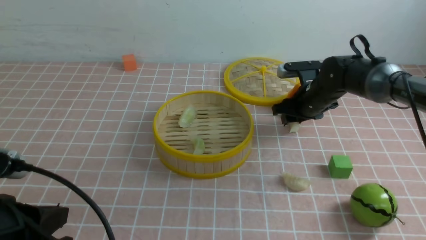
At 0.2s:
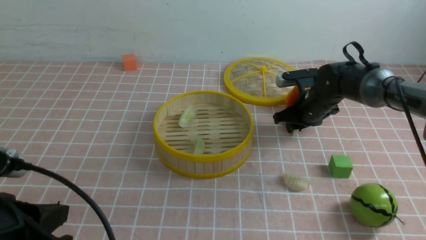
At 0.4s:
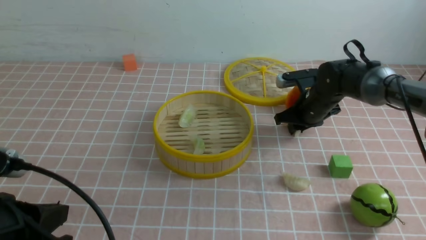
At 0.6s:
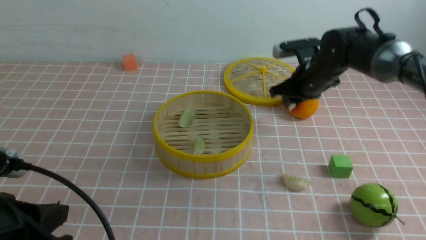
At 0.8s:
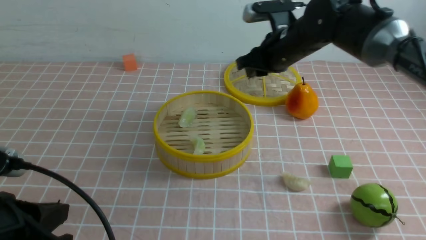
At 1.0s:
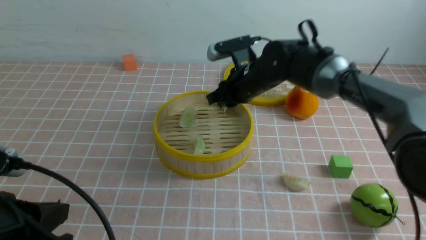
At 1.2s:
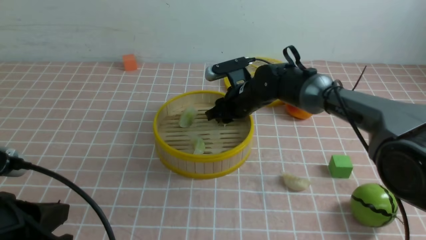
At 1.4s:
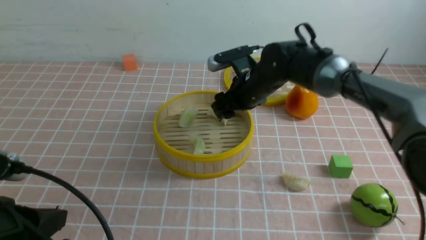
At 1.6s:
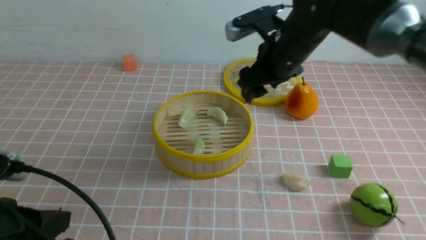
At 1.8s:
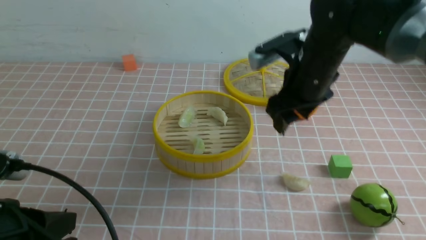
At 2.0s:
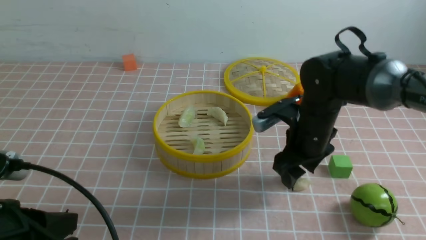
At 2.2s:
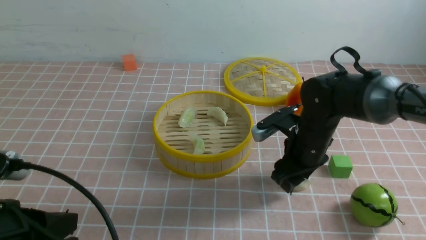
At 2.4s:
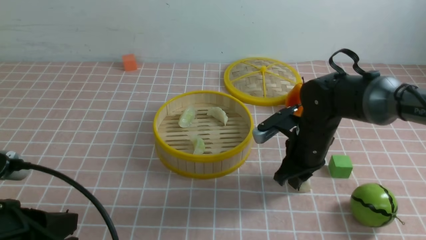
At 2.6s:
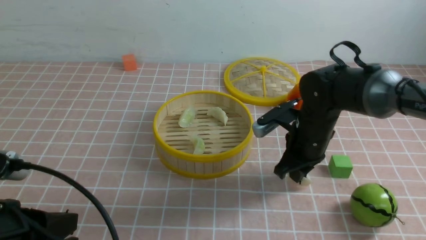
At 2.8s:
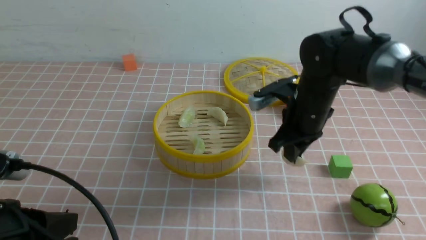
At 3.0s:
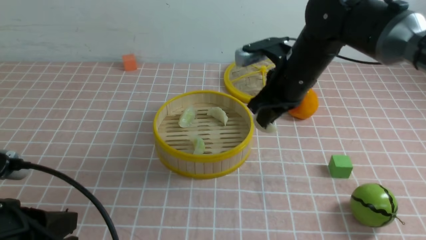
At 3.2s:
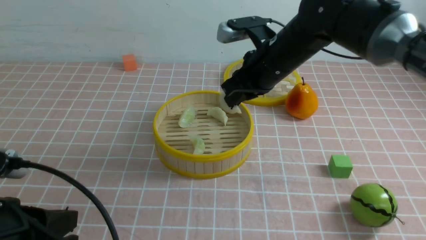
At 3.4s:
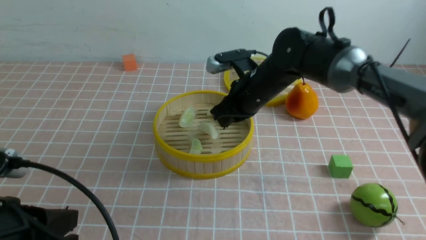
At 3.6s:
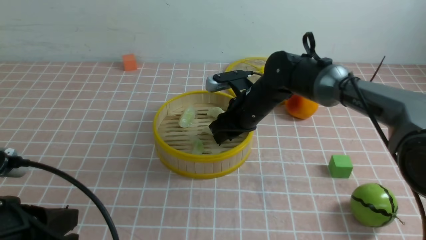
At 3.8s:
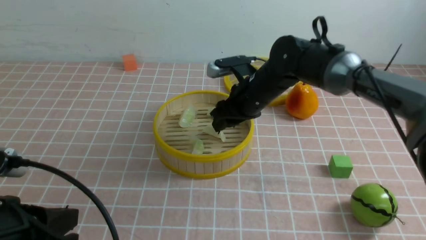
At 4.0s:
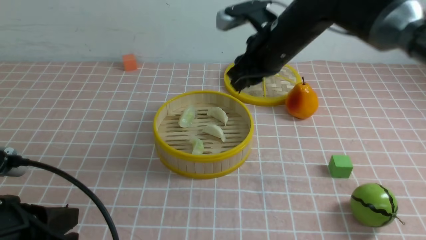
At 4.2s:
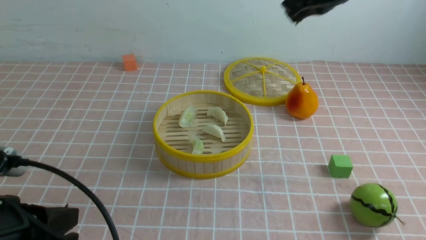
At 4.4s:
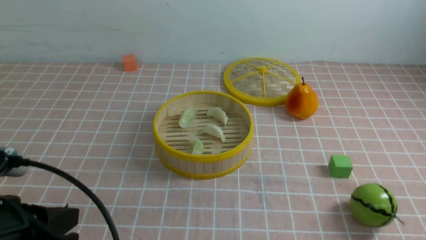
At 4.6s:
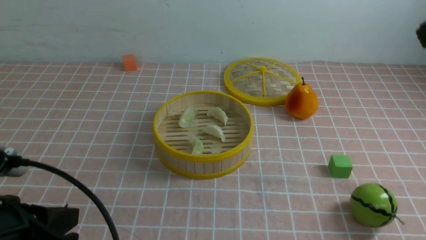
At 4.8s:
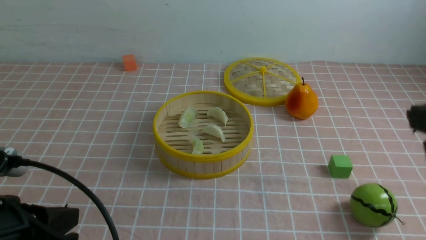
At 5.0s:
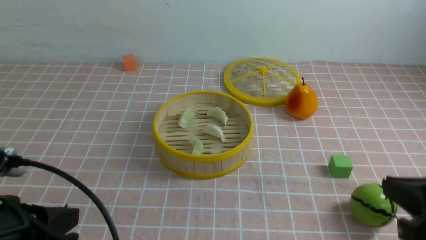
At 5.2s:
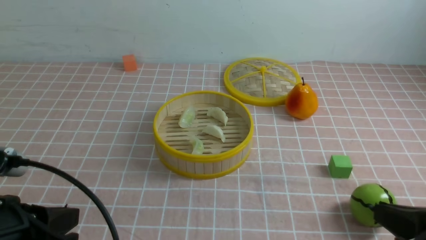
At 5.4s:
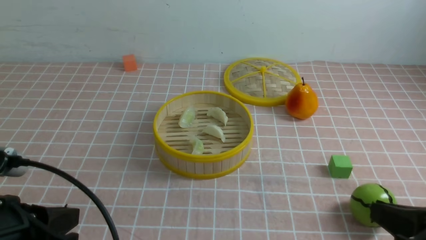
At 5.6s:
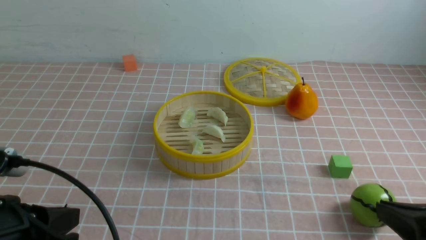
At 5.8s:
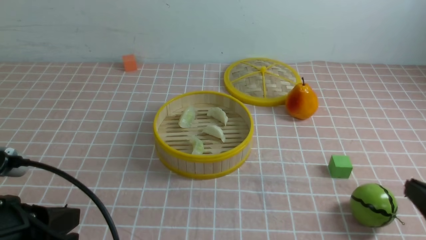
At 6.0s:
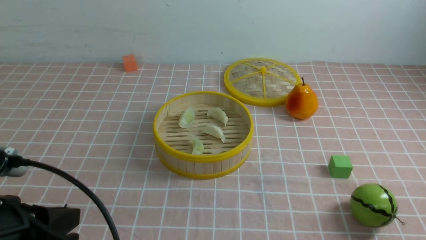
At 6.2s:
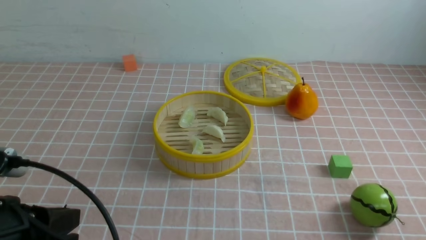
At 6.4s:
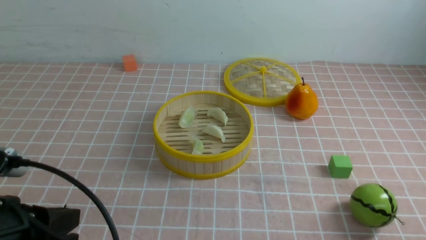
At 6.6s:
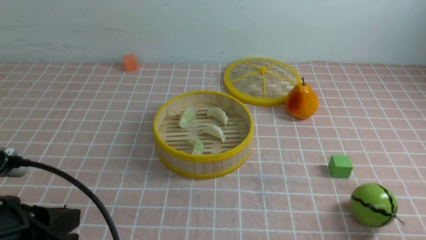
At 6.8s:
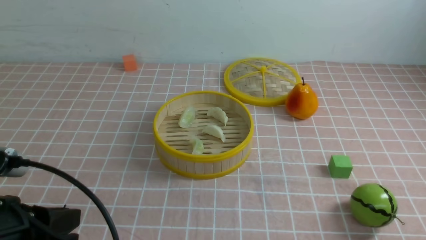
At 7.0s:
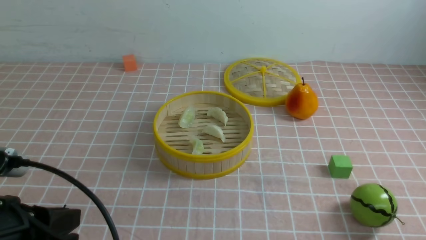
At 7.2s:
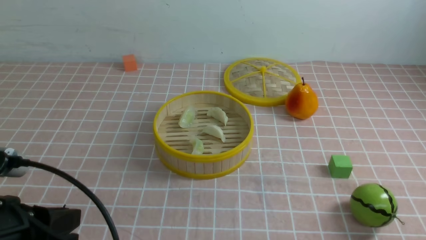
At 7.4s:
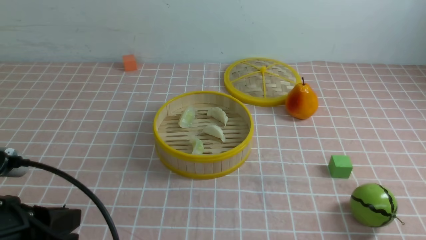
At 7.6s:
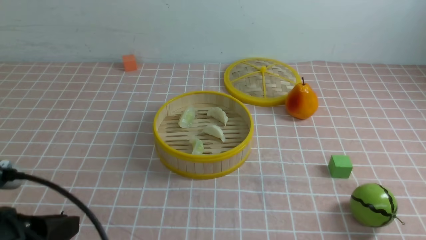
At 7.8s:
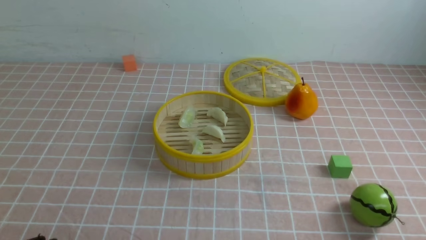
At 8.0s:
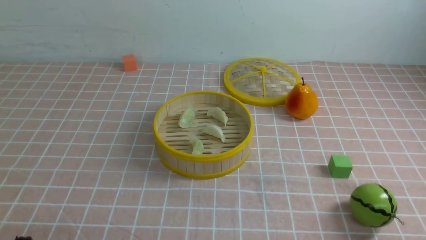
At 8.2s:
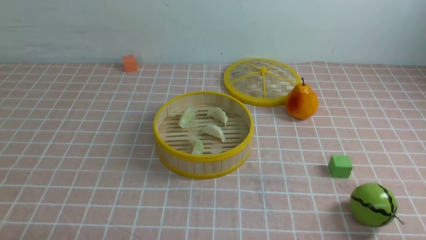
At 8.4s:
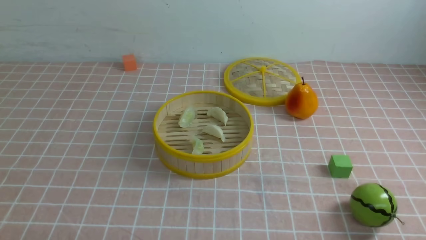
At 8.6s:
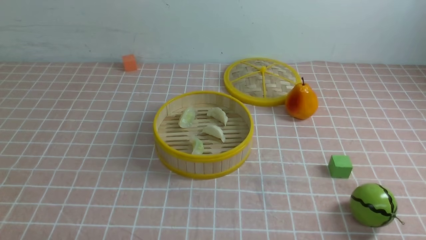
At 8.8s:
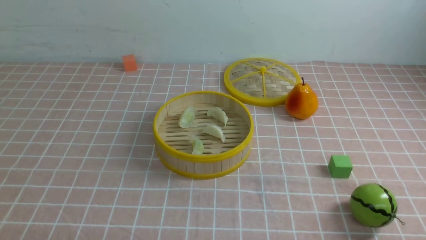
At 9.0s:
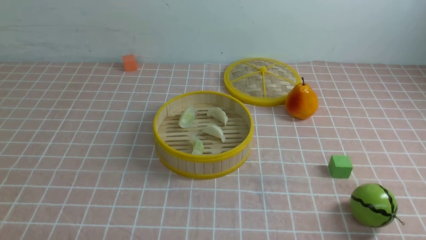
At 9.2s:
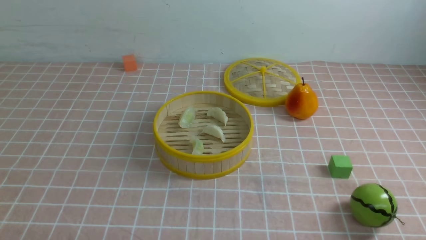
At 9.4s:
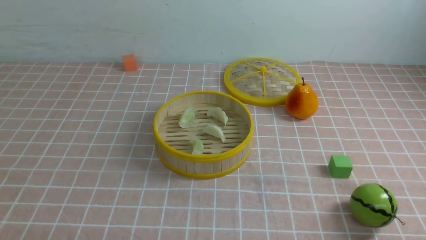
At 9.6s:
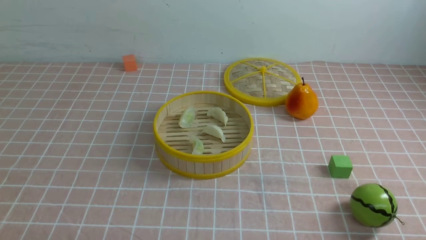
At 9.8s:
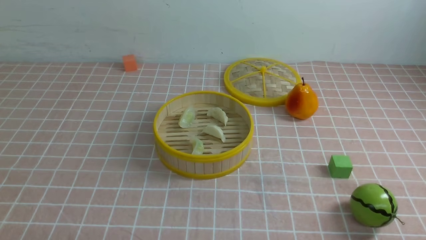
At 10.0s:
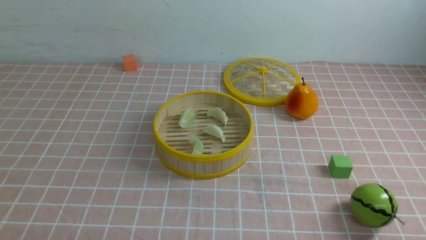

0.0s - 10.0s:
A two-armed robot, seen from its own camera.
Task of the whole recording: put the dumplings into the steamer on the table with the pink tablecloth.
Step, 0.6s - 1.2s: use the right arm to put the dumpling into the steamer.
Step, 1.4s - 2.4s: use the right arm to grab a dumpling.
Step, 2.6s - 3.8s: use the right arm to put the dumpling into the steamer.
0.0s - 1.4s: The right gripper travels to the left and upward by about 15 cm.
1.4s - 2.8s: The right gripper goes about 10 cm backward and to the right, moves approximately 5 cm downward and comes back, and closes its fingers.
2.8s - 4.2s: The right gripper travels upward by approximately 20 cm, and opens, then closes again.
4.2s - 5.8s: The right gripper moves backward, downward and to the right, about 35 cm.
5.8s - 7.2s: The right gripper travels downward by some 5 cm.
7.2s - 8.6s: The left gripper goes approximately 15 cm downward, backward and to the left.
8.6s - 10.0s: Neither gripper changes place.

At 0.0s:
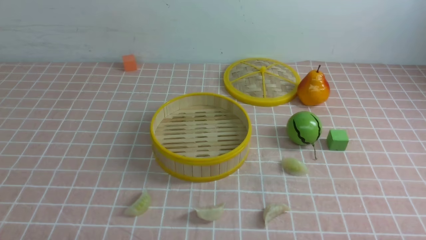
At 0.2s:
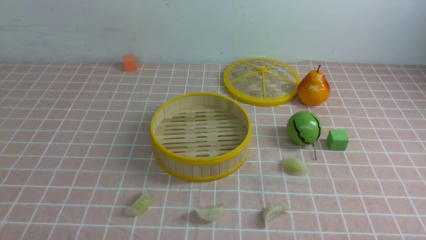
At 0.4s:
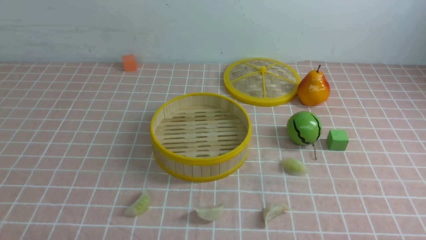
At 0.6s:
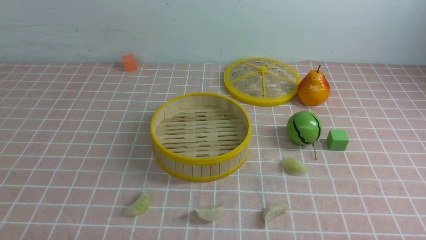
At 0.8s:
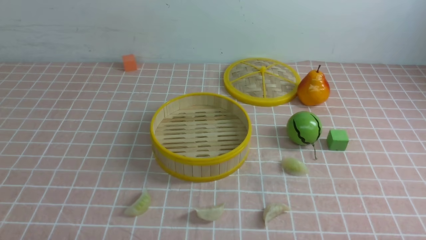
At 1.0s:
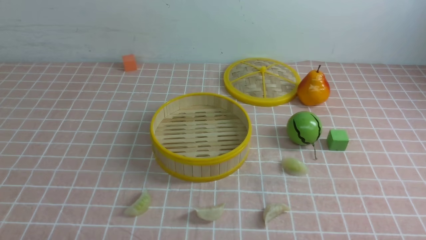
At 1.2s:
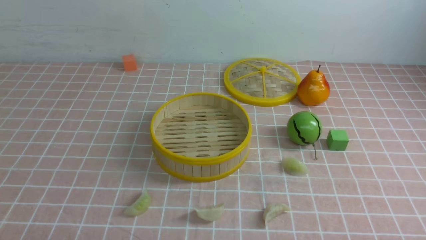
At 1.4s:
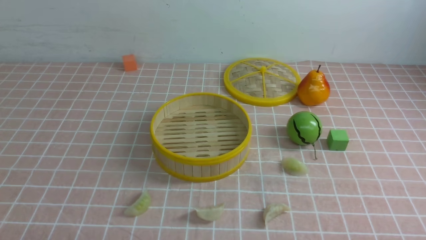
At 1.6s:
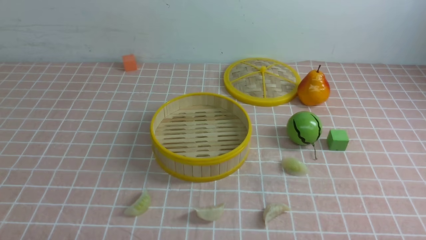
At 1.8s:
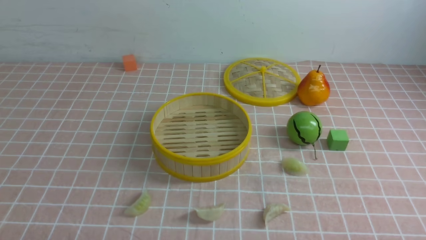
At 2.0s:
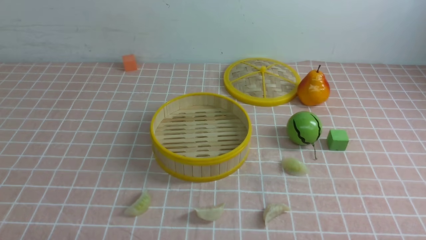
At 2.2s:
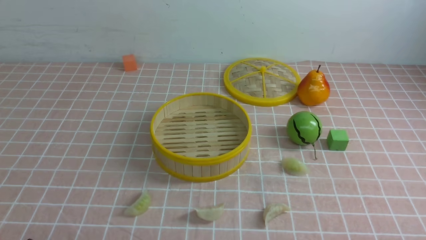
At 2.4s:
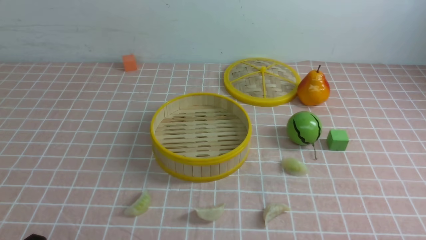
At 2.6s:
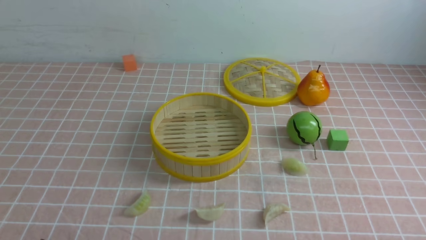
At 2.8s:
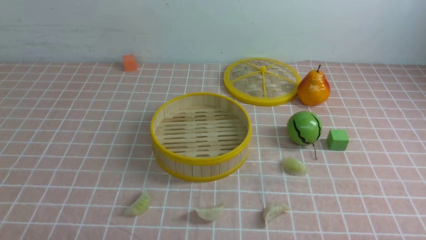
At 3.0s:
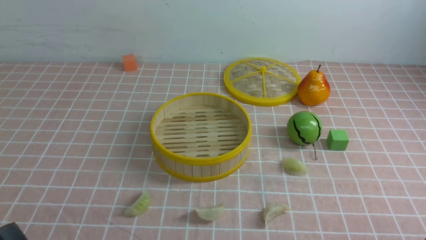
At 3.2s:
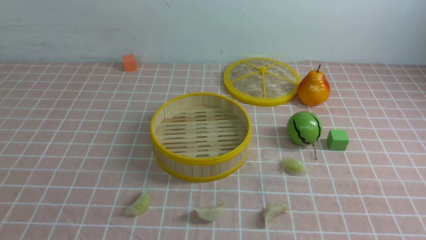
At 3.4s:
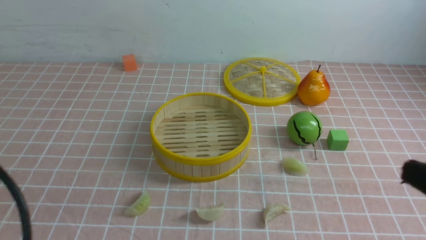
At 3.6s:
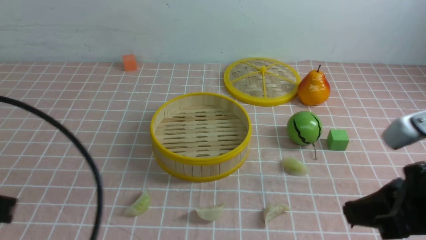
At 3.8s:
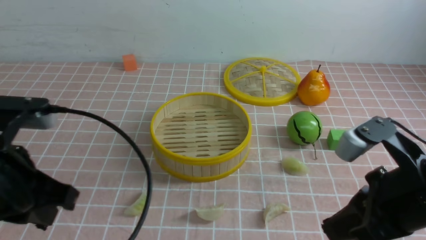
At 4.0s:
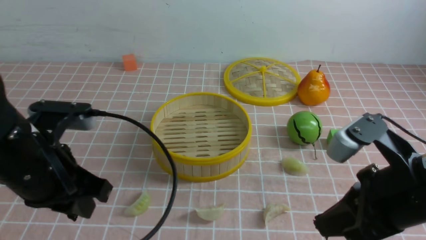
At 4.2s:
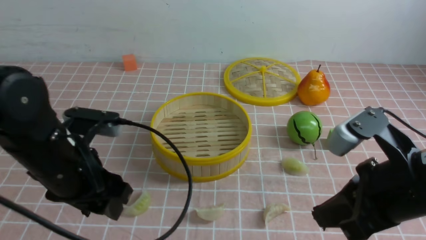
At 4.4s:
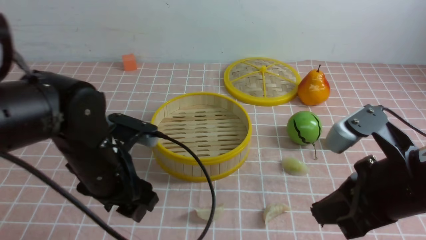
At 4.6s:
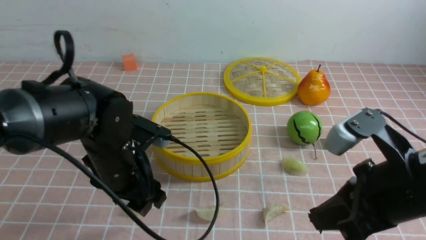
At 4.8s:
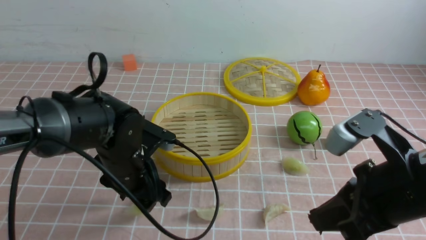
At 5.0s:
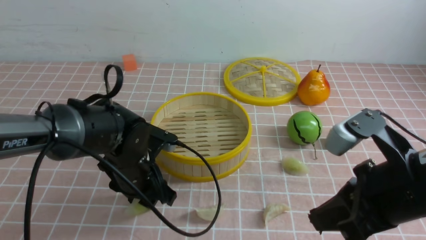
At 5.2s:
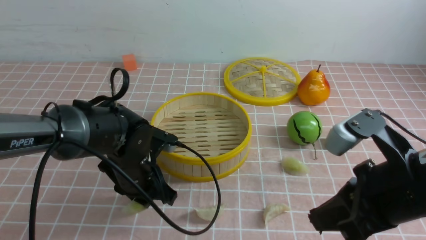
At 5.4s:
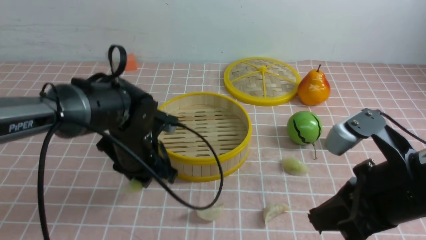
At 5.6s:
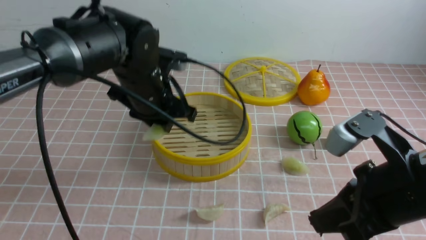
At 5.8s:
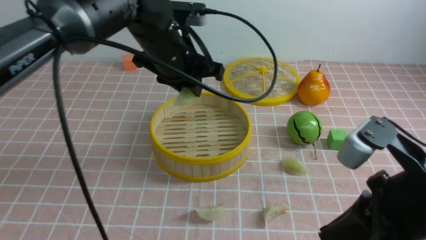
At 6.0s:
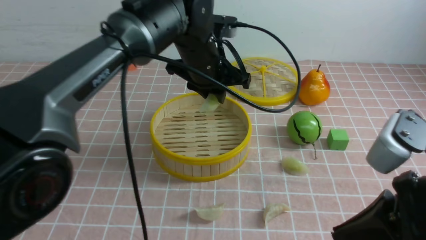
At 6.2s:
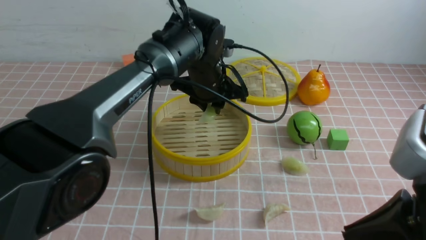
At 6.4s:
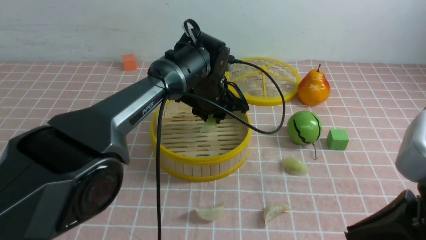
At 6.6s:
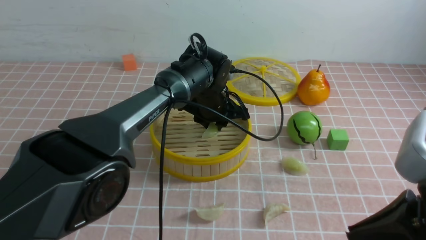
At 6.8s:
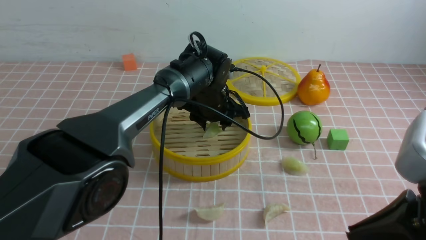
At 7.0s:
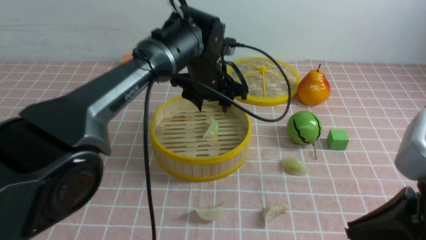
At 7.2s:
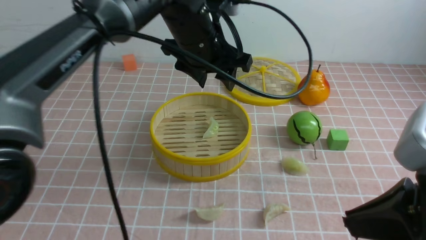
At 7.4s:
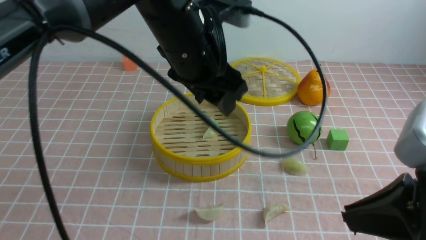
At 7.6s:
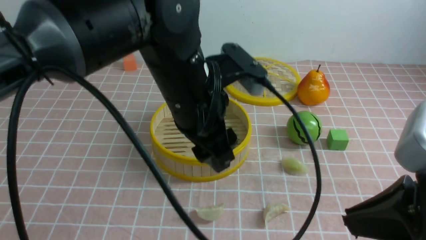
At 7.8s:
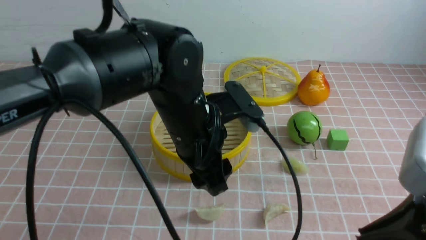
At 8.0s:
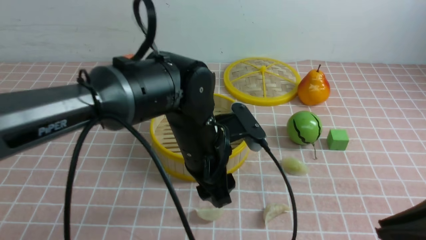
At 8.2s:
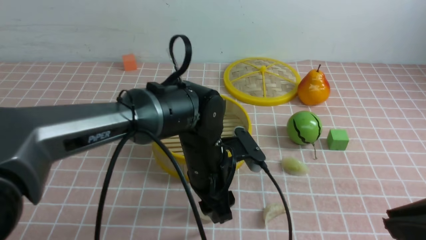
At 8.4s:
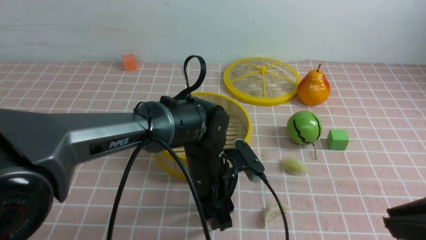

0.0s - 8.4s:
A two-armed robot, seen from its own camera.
Task of the whole recording: put the dumplings into the steamer on the table with the pink tablecloth.
Step, 0.0s - 5.2s: use the left arm to grab a dumpling.
Step, 5.4s - 7.0s: use the left arm to put the dumpling into the steamer.
2.8s - 4.2s: The right gripper shifts about 20 cm forward, upward and to the left, and closes up. Meanwhile the left gripper goes some 20 cm forward and upward, and closes and opens again.
4.2s - 5.6s: The left gripper is displaced forward and to the right by some 15 cm, and opens, then closes again.
5.6s - 7.0s: The right gripper travels backward by some 5 cm. The left gripper moves up and down over about 10 cm, changing direction 2 times, and opens up.
7.0s - 8.4s: The left gripper goes roughly 15 cm backward and downward.
